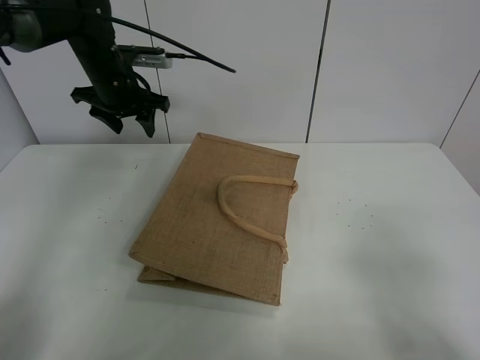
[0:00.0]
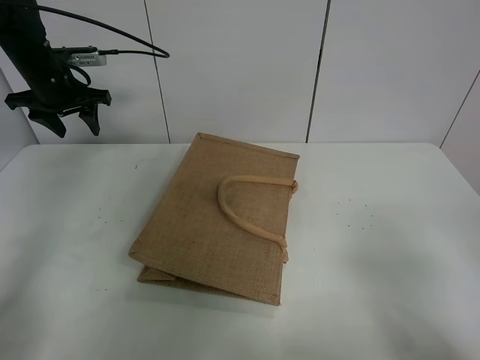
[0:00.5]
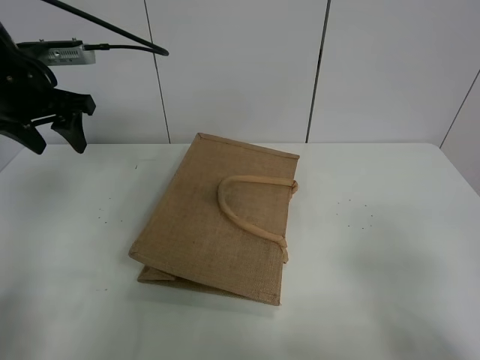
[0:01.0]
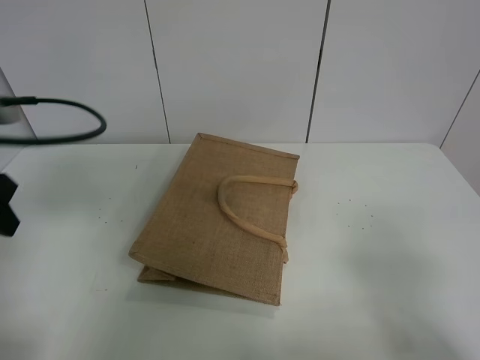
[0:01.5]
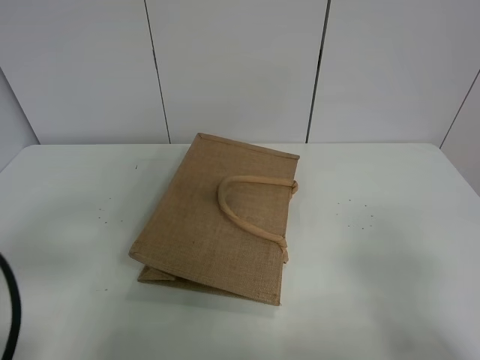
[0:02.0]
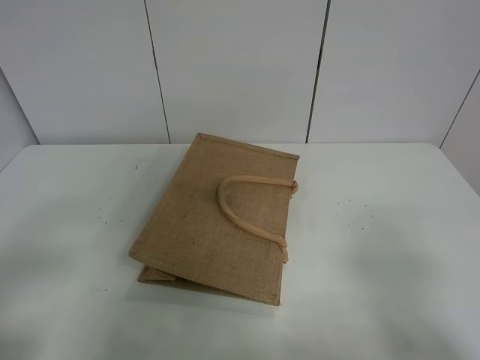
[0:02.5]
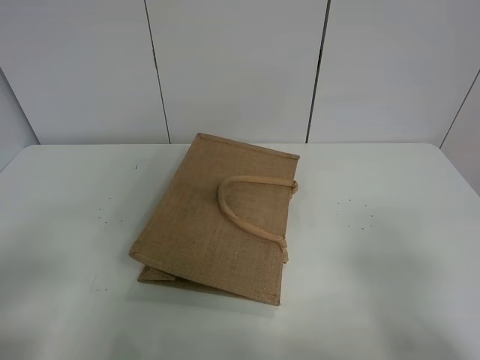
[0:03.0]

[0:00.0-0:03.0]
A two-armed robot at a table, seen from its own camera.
Task of the whole recording: open the brown linen bag and put the peach in the bag.
0:00.0 to 0:01.5: The left gripper heads backward, covering approximately 30 cm.
0:01.5 to 0:03.0: The left gripper goes about 15 cm backward.

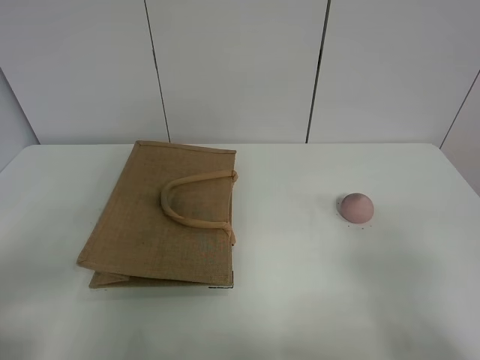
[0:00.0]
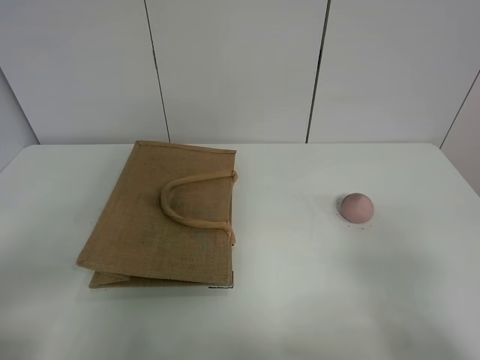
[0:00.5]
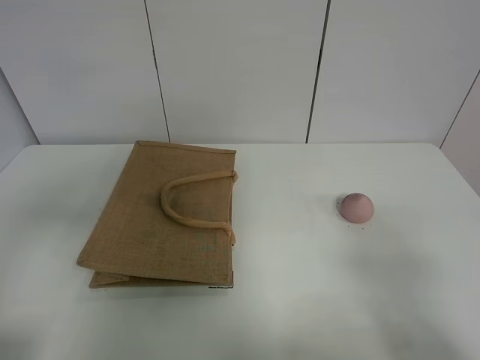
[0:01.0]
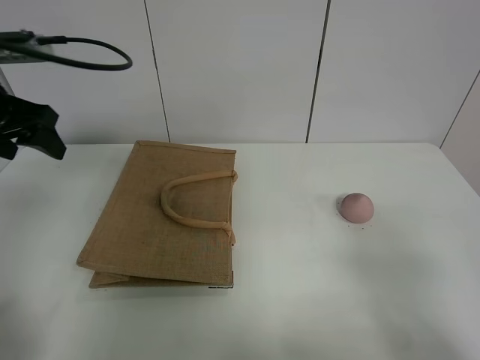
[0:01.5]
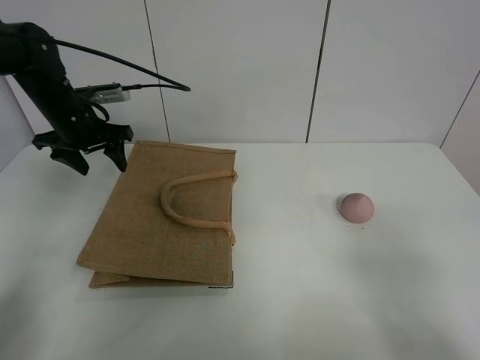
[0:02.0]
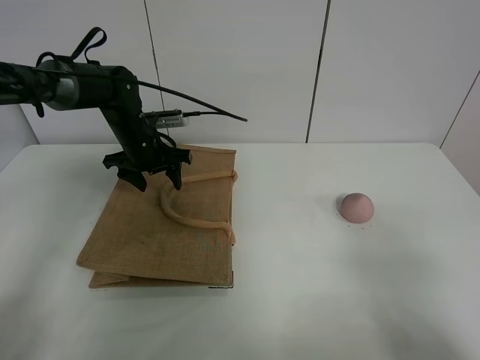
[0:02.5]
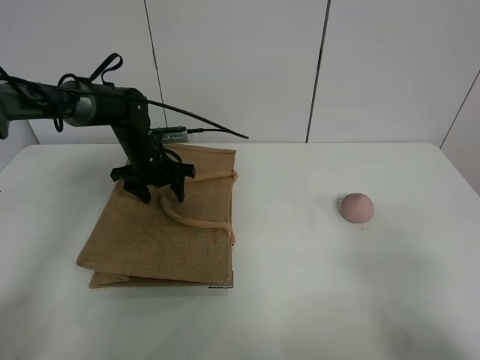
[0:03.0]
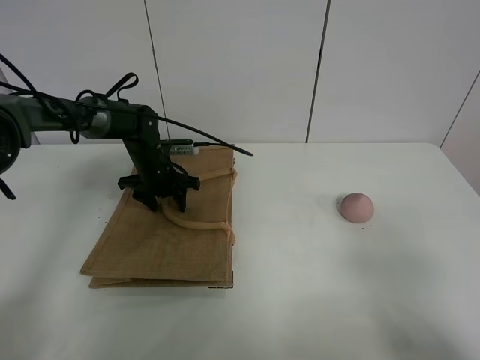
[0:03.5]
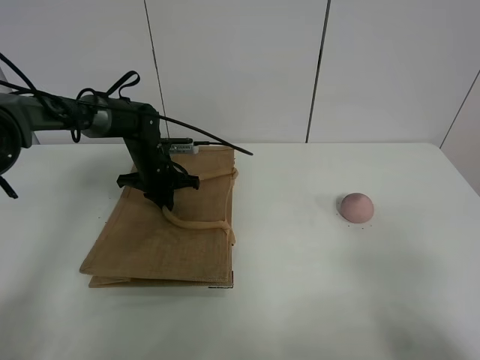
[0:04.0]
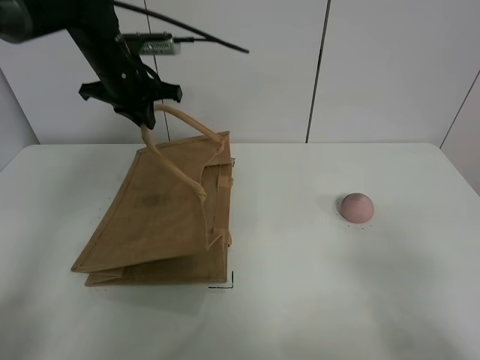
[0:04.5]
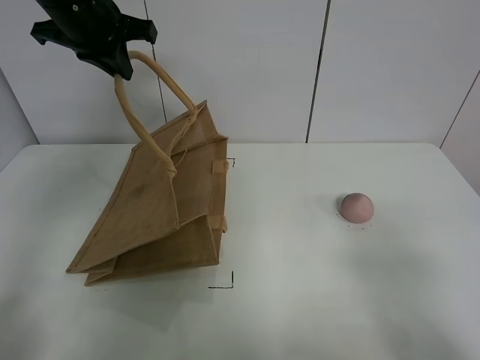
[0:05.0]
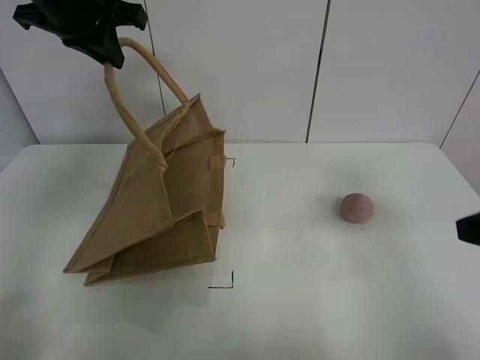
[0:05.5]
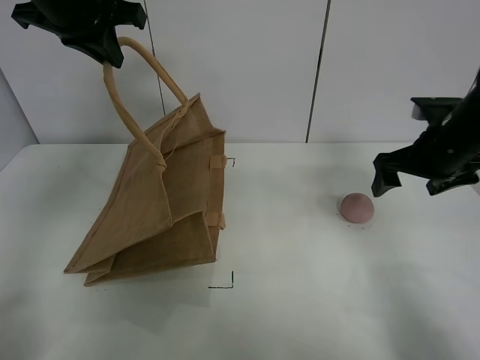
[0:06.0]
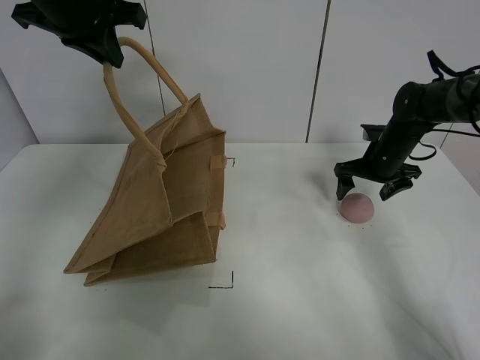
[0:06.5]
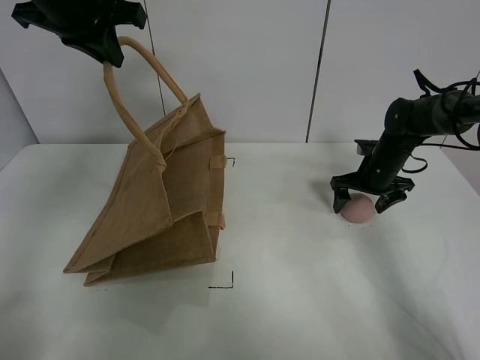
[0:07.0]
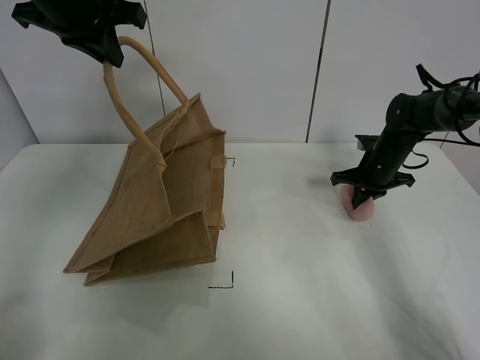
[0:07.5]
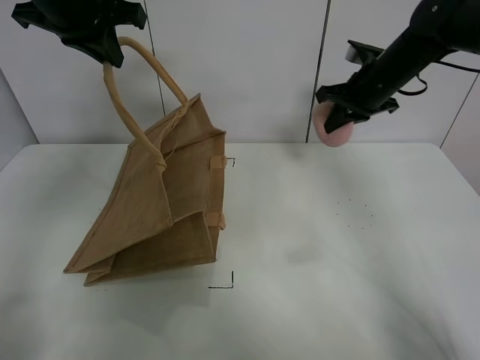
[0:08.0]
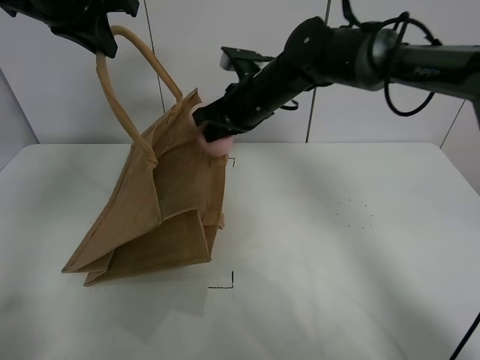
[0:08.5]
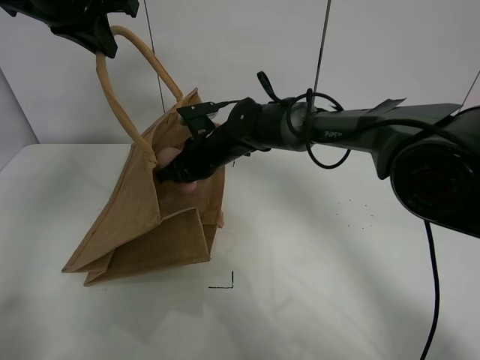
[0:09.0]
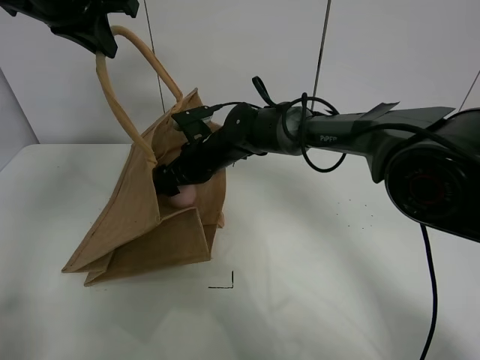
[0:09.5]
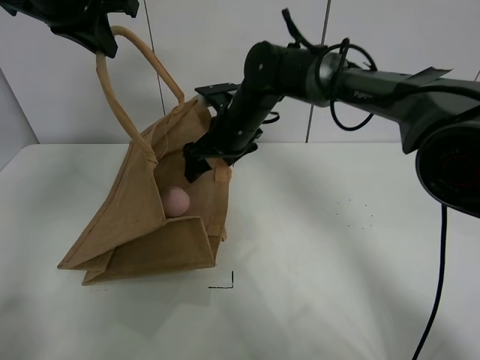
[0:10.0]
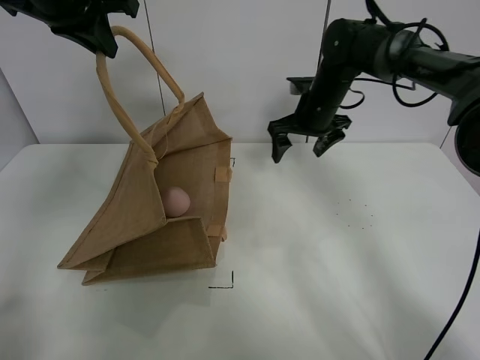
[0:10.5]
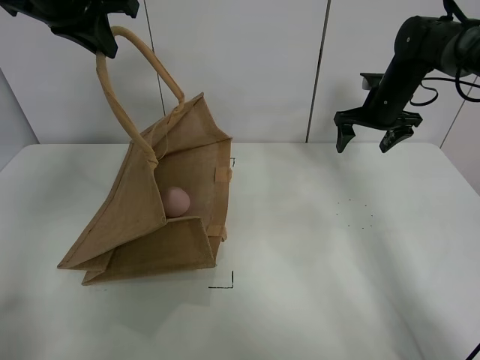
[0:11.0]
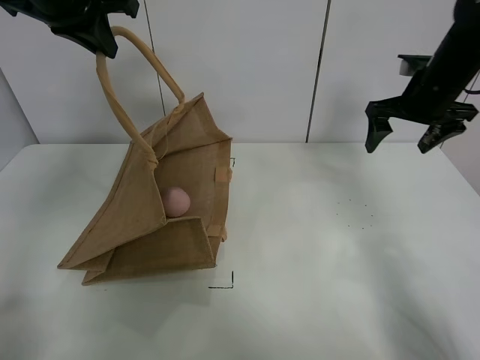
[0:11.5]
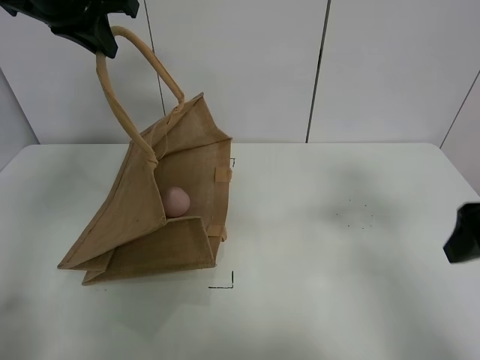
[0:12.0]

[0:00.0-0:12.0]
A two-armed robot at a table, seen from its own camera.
Task of the whole recording: open the brown linen bag and put the peach in the bag.
Step, 0:00.0 to 0:05.0: Lift the handbag with left gripper.
Step, 0:05.5 to 0:07.0: Grasp the peach with right gripper.
Step, 0:07.5 to 0:10.0: Place the peach in the handbag with right gripper.
0:00.0 to 0:02.0: The left gripper travels forward by some 40 cm.
0:02.0 to 0:04.0: The left gripper moves downward and to the right, some 15 cm, and closes up.
0:04.0 to 0:06.0: The left gripper is displaced upward by about 30 cm. Meanwhile the right gripper travels forward by roughly 35 cm.
0:06.0 to 0:08.0: The right gripper goes approximately 15 cm forward and to the left, goes downward and returns, some 10 cm each way, and closes its fingers.
0:08.0 to 0:10.0: The right gripper goes approximately 20 cm to the left, and opens up.
0:10.0 to 0:12.0: The right gripper moves to the right and backward, approximately 40 cm.

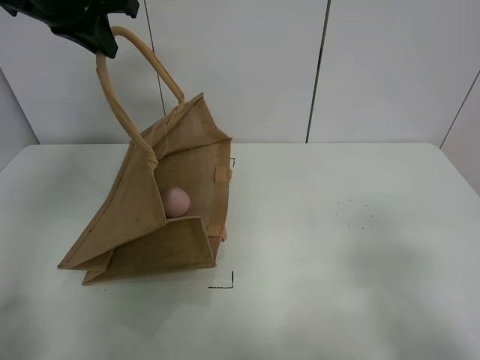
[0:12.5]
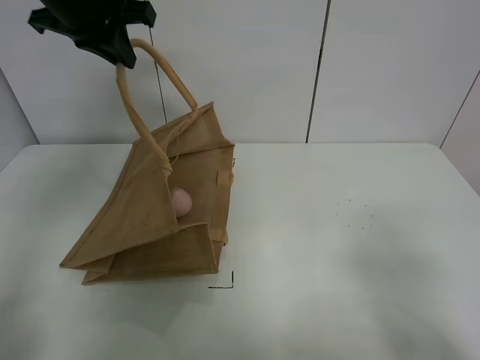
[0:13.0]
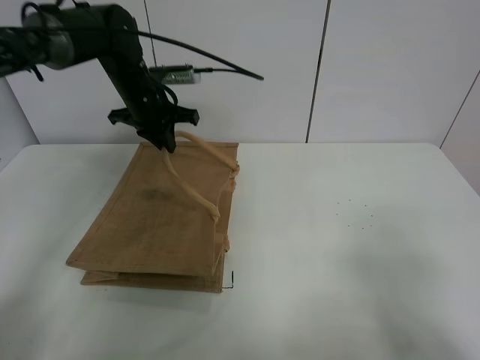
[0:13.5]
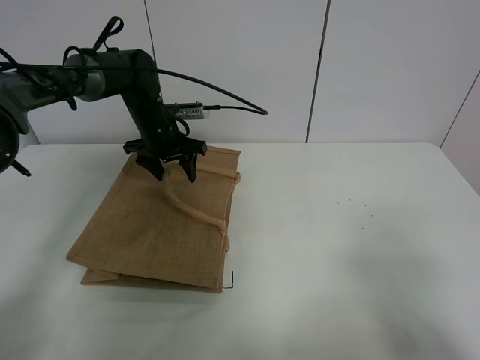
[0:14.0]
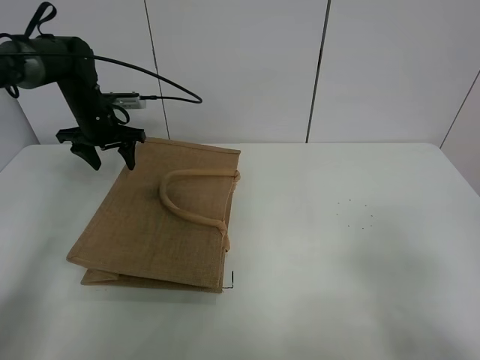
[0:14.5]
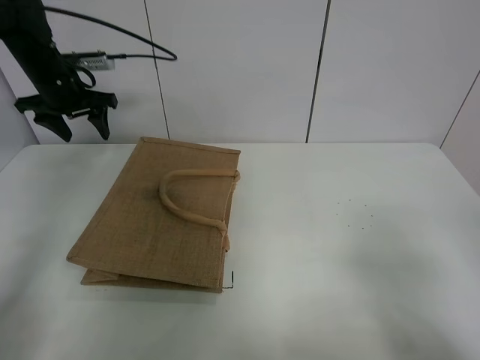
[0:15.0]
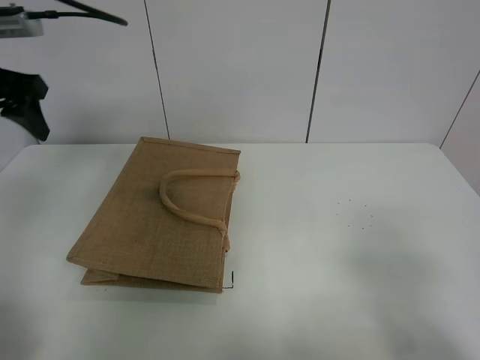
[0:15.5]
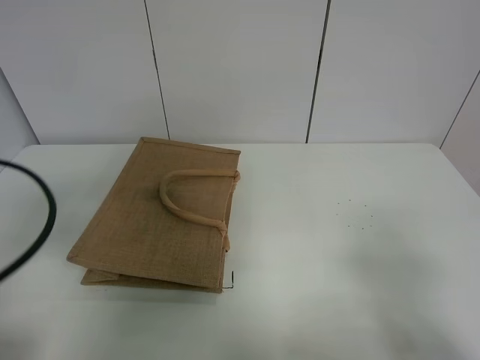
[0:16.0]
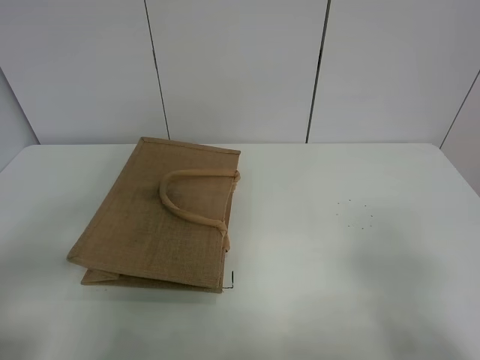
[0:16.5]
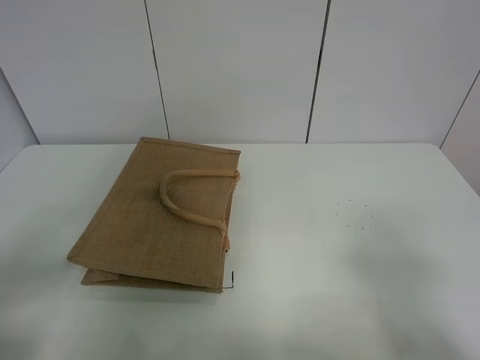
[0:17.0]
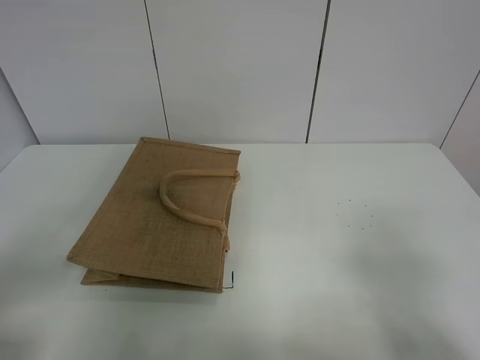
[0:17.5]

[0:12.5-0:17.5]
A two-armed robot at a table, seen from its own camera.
Task of the whole recording: open the brown linen bag and put the peach in the bag.
Step, 0:12.5 to 0:14.5: Put down the handbag with left grippe.
0:12.5 to 0:15.0: The left gripper moves downward, forward and to the left, some 20 cm, and opens its fingers.
0:15.0 to 0:17.5: The left gripper shifts about 50 cm backward.
